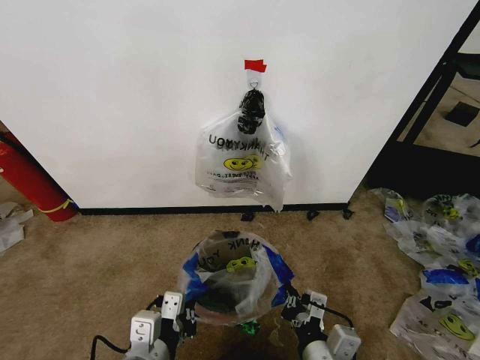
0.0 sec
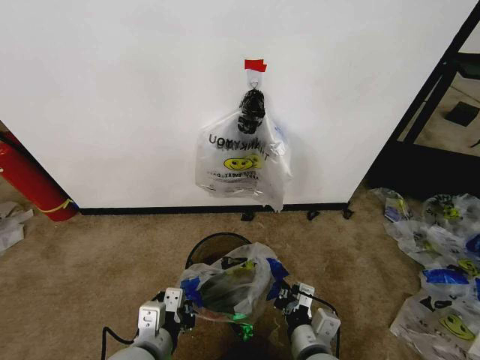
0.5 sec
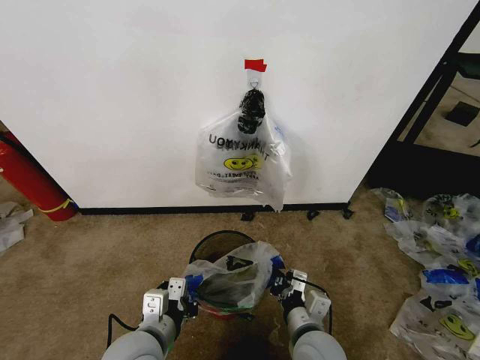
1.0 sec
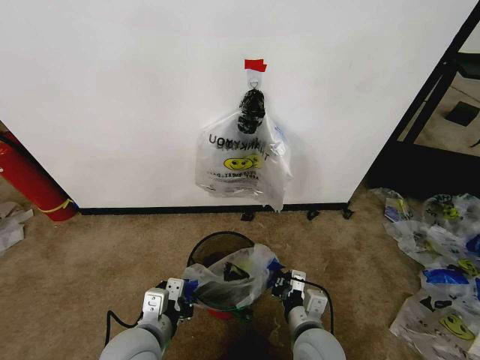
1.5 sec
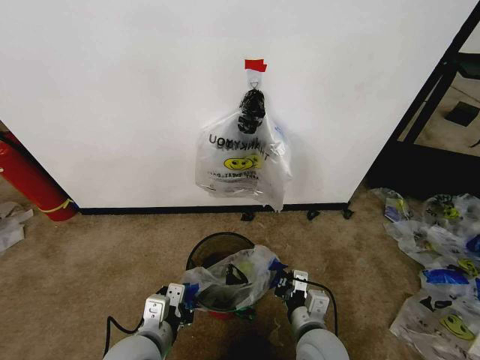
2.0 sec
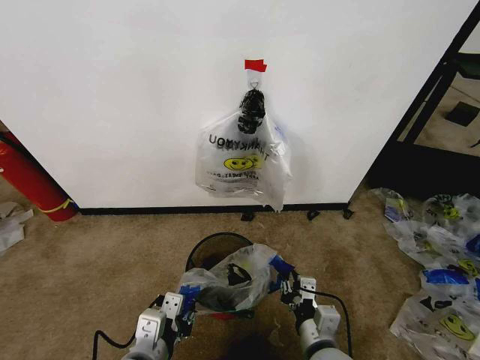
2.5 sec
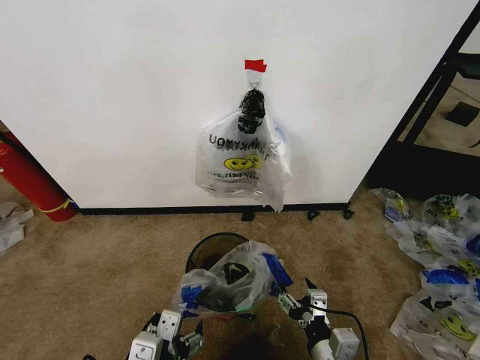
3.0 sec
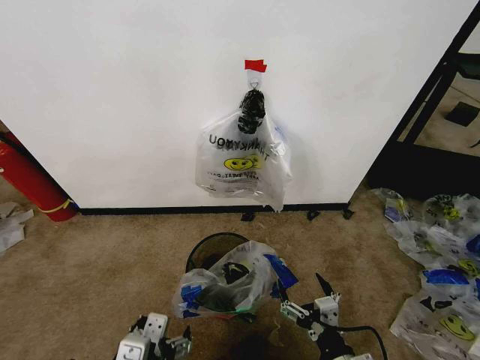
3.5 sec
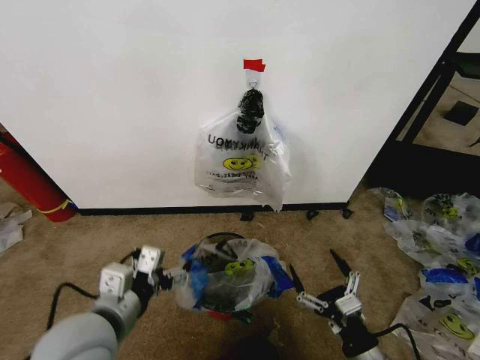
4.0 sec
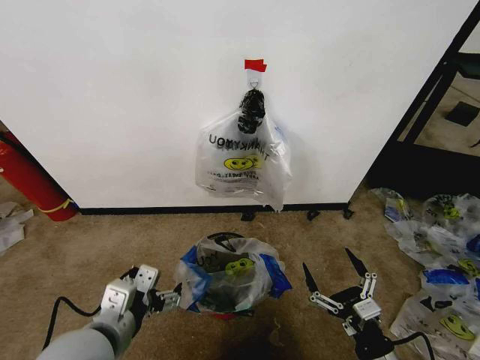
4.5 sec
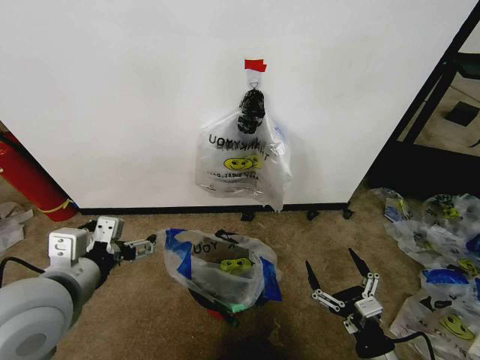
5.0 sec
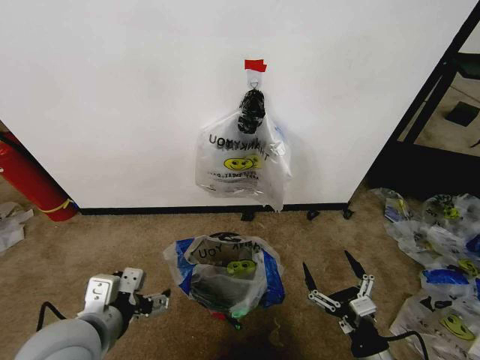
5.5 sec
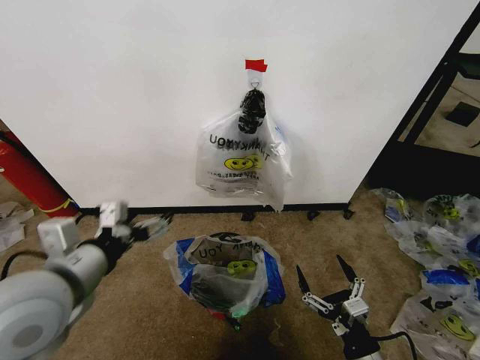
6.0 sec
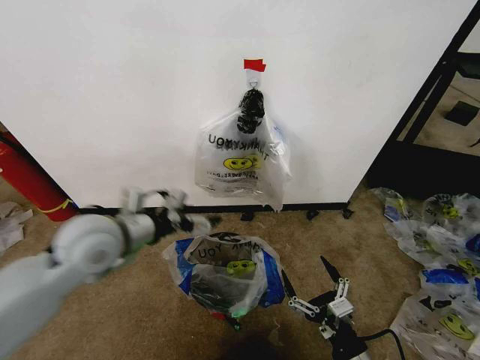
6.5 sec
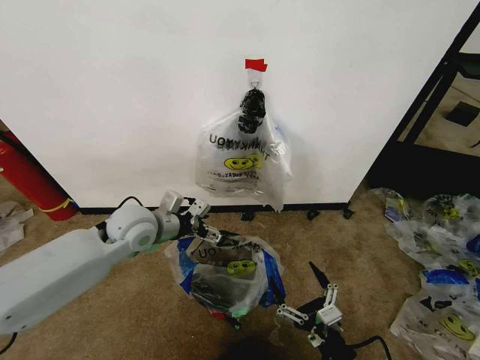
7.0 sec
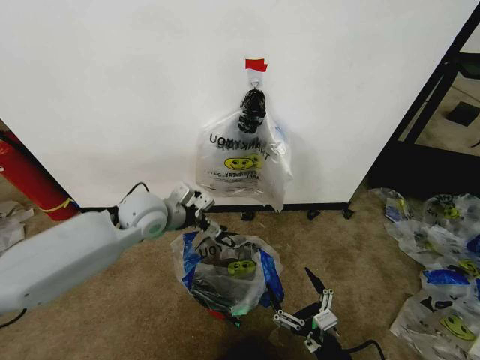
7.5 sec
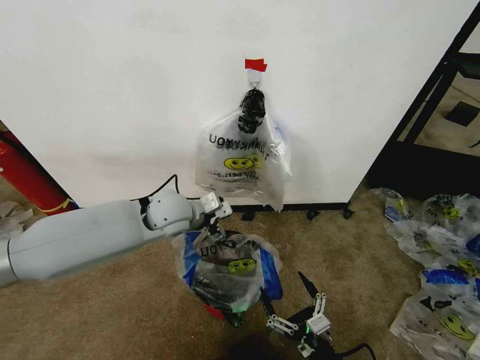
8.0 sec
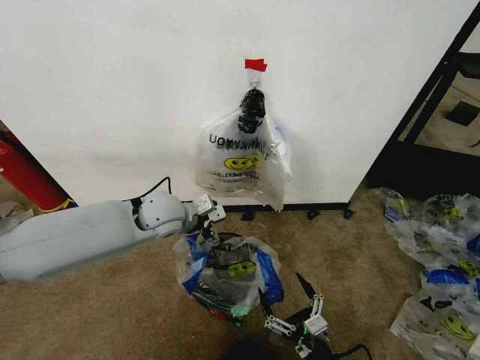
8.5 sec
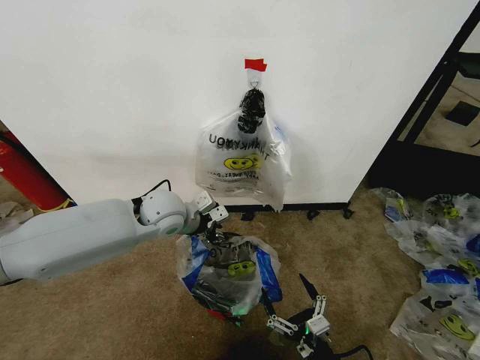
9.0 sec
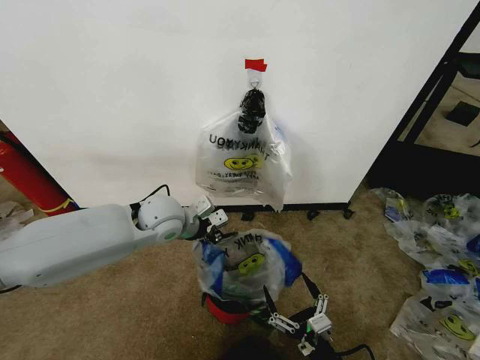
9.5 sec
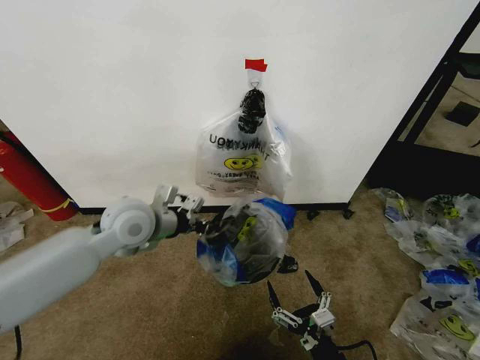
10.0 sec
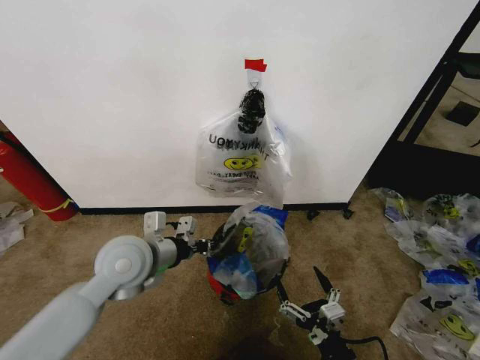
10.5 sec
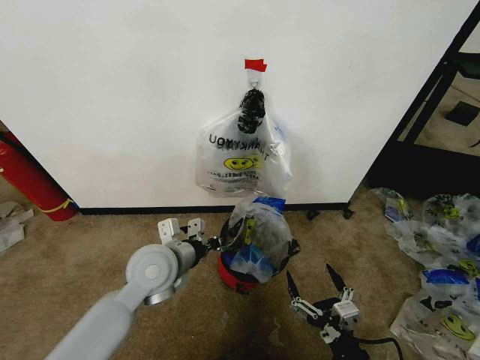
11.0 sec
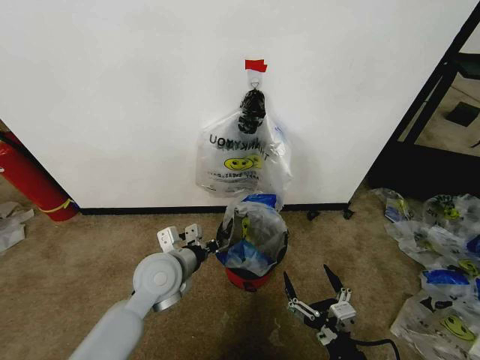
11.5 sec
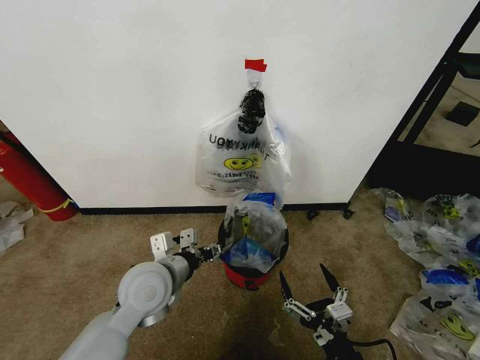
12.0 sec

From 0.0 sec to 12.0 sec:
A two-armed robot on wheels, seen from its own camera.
Task of the whole recording: Pick up the garbage bag from the wall and place it over the trash bin.
From 0.0 sec to 2.0 sec: The left gripper moves roughly 5 cm. Meanwhile the right gripper goes approximately 10 cm forward and downward.
From 2.0 sec to 4.0 sec: The left gripper heads upward, covering roughly 10 cm, and opens. The right gripper moves to the right and backward, about 15 cm, and opens up.
From 4.0 sec to 6.0 sec: The left gripper moves up and down over roughly 10 cm, changing direction 2 times.
From 6.0 sec to 8.0 sec: The left gripper heads forward and to the right, covering roughly 25 cm; the right gripper heads to the left, covering roughly 5 cm.
From 8.0 sec to 10.0 sec: The left gripper moves to the left and backward, some 10 cm, and closes up.
From 10.0 sec to 12.0 sec: The left gripper travels backward and downward by approximately 10 cm, and opens up.

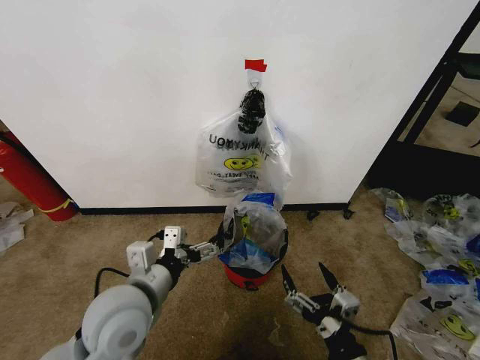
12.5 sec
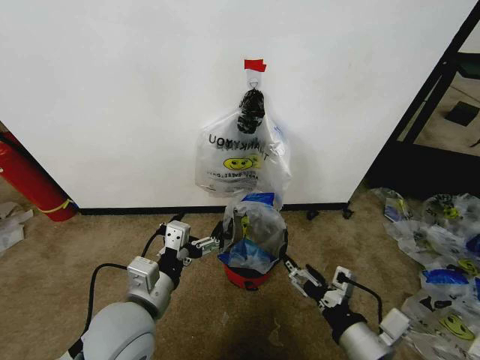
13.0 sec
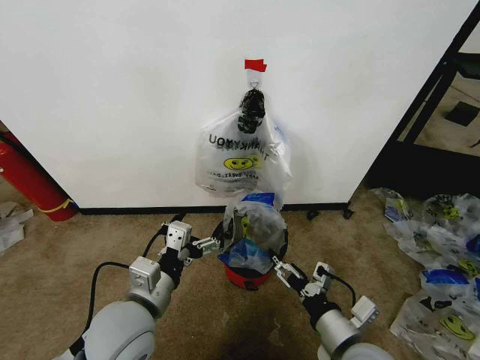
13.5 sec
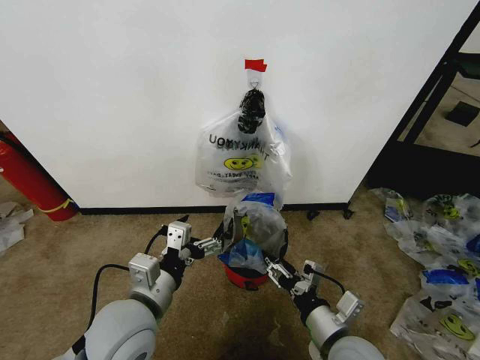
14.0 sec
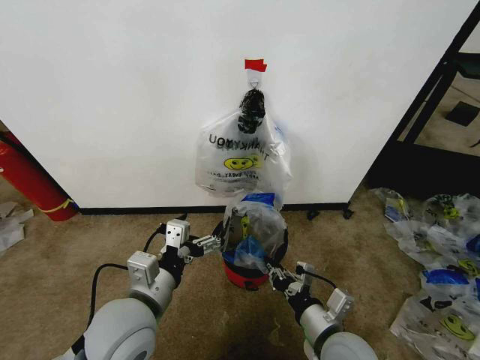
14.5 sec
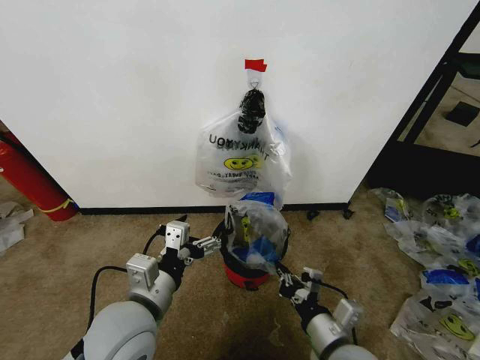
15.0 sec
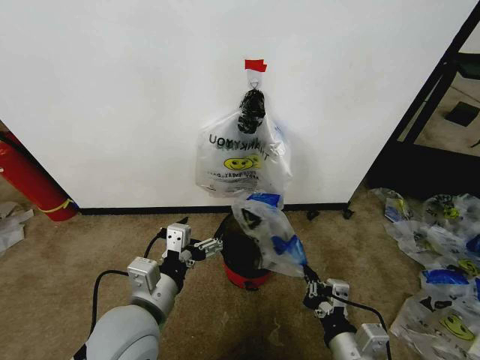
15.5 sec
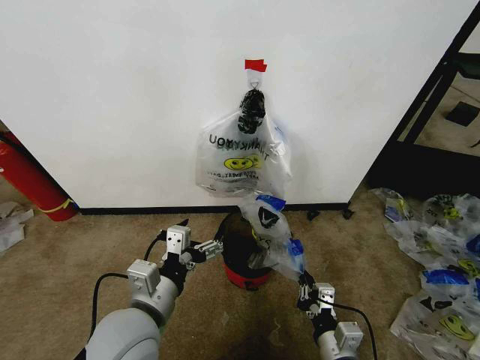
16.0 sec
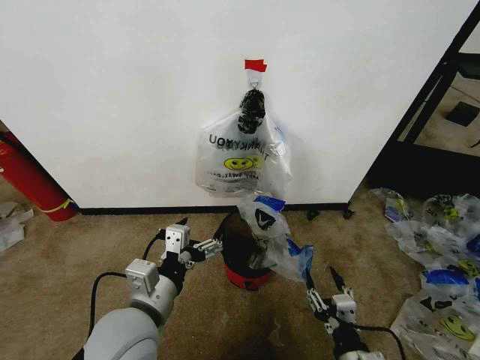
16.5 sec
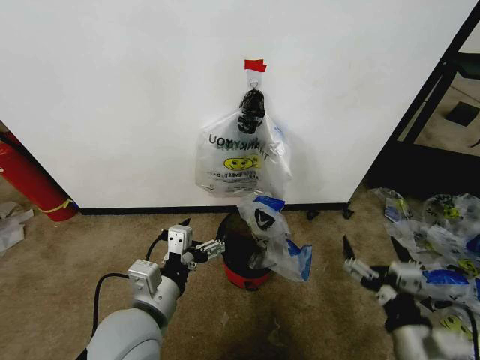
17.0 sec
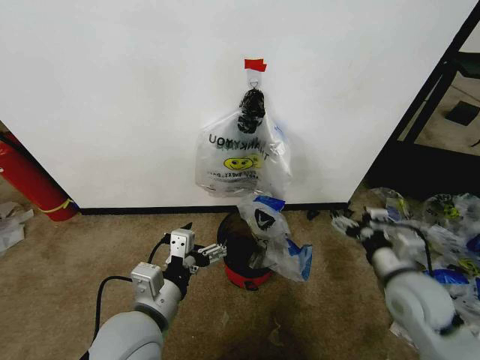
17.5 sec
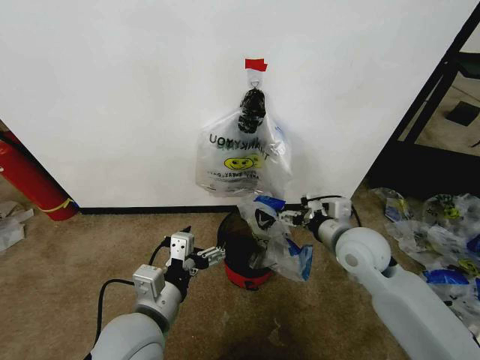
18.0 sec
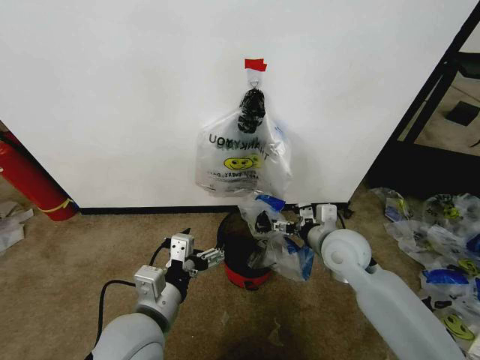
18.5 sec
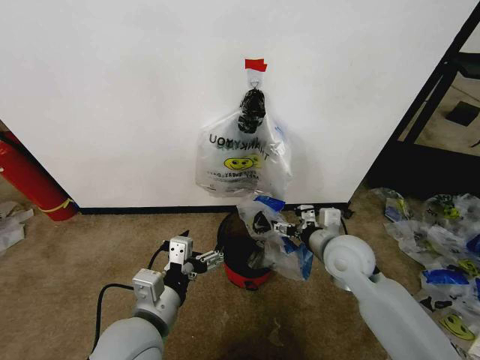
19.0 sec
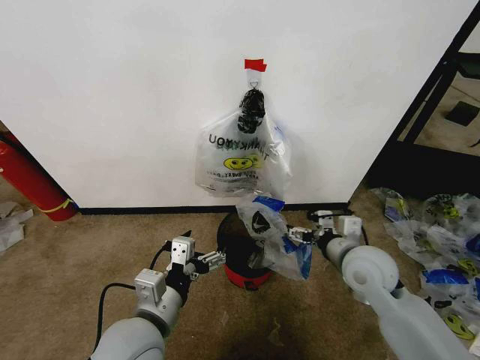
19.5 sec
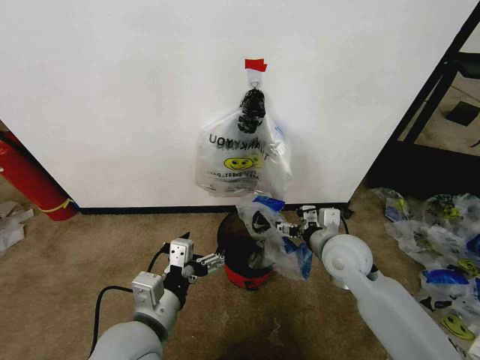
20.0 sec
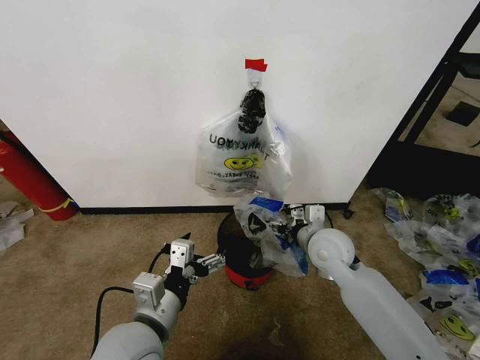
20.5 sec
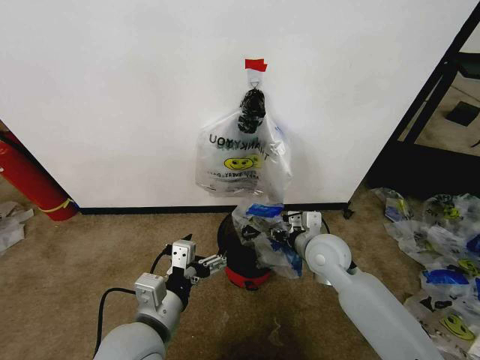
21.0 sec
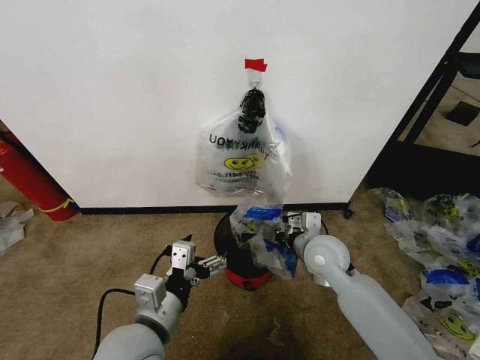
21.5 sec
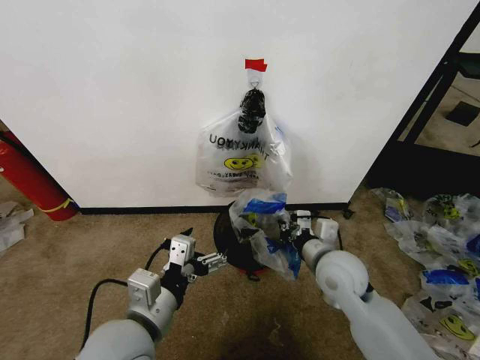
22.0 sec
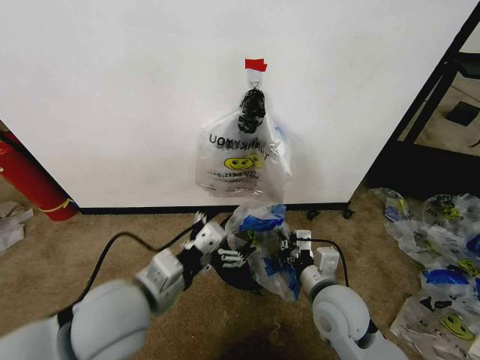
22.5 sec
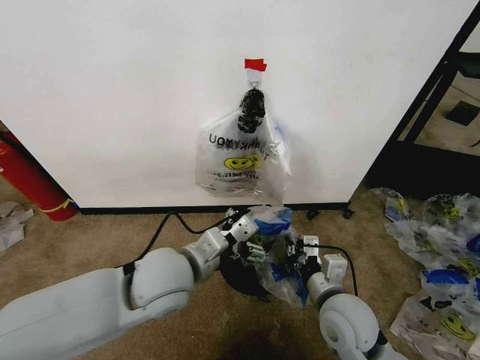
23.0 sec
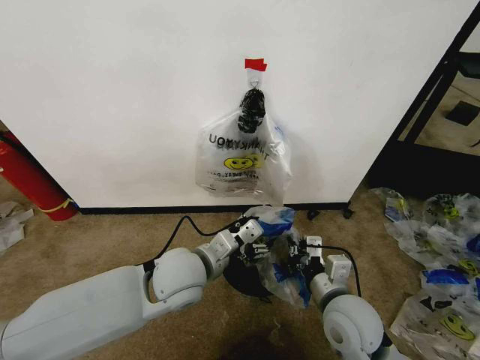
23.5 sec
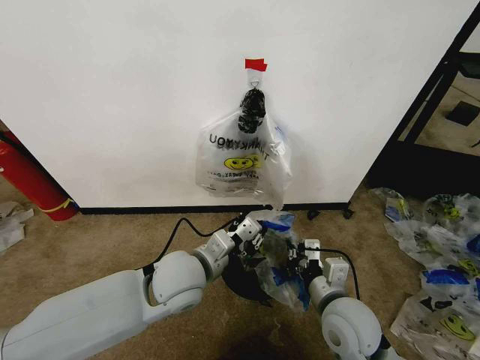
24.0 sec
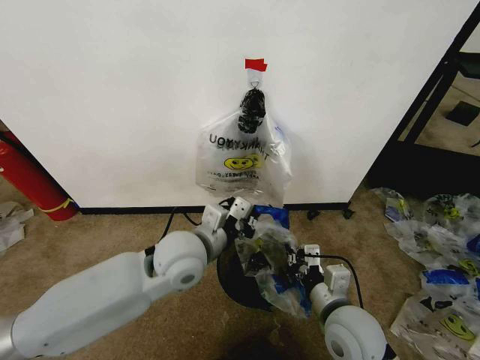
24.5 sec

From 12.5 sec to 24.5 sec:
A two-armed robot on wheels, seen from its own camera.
Task of the whole recording: Pick up the garbage bag from the wall and place it over the trash bin.
From 12.5 sec to 14.5 sec: The right gripper heads forward, covering approximately 10 cm, and closes its fingers.
From 14.5 sec to 16.5 sec: The right gripper heads backward, covering about 10 cm, and opens its fingers.
From 16.5 sec to 18.5 sec: The right gripper heads forward and upward, covering some 30 cm, and opens its fingers.
From 18.5 sec to 20.5 sec: The grippers make only small movements.
From 20.5 sec to 22.5 sec: The right gripper goes some 10 cm backward, and closes its fingers. The left gripper is displaced upward by about 5 cm.
From 22.5 sec to 24.5 sec: The left gripper goes some 10 cm forward and to the right, and closes its fingers.

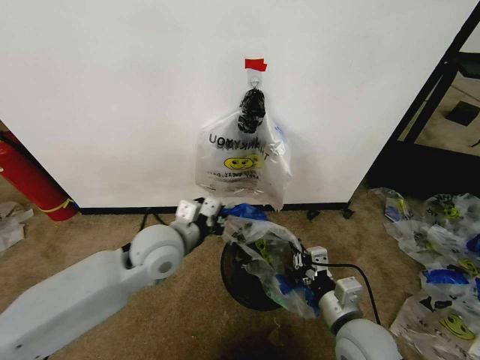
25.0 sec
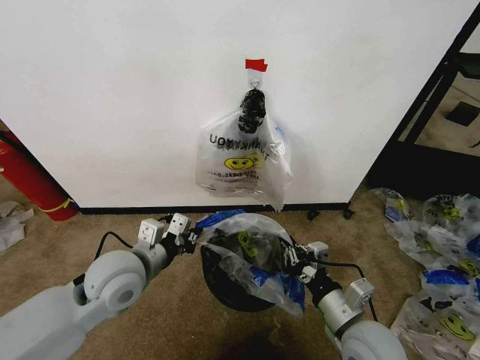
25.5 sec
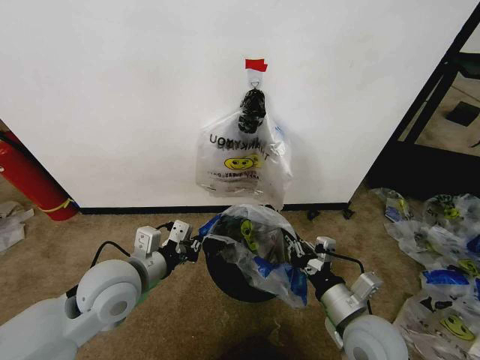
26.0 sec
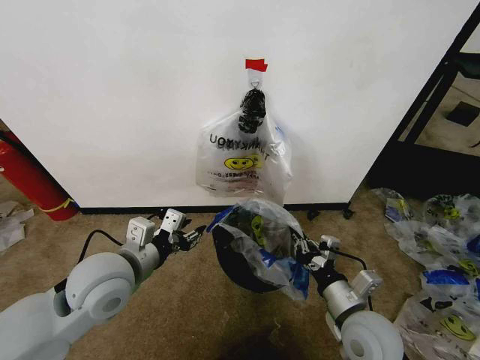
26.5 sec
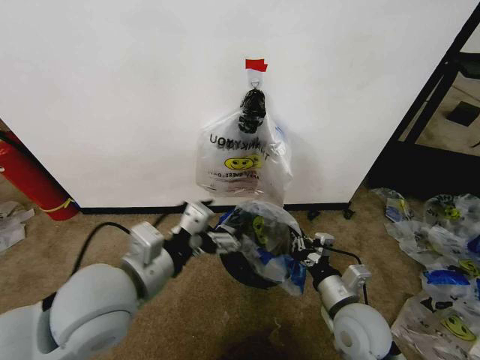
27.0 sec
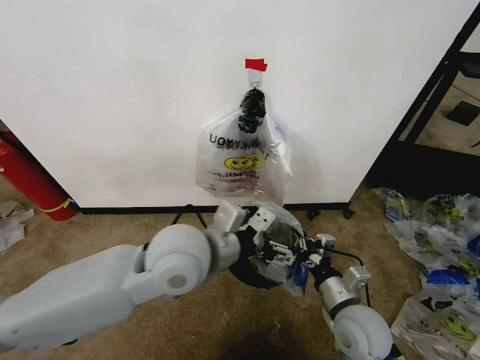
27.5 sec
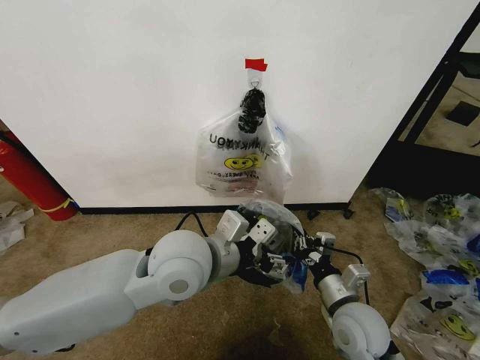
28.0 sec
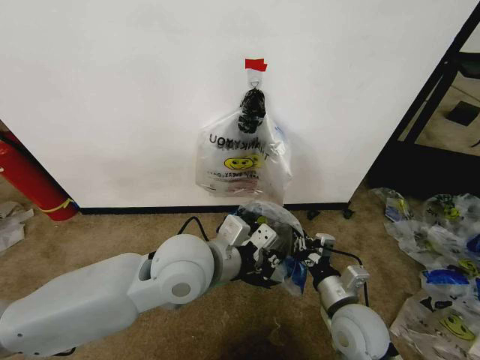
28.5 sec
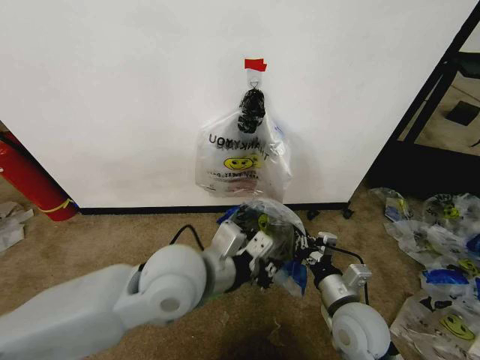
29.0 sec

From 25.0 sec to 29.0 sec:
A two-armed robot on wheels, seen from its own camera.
Task of the whole recording: Pick up the garbage bag from the wall and place it over the trash bin.
From 25.0 sec to 27.0 sec: The left gripper travels backward and upward by approximately 15 cm, and opens up.
From 27.0 sec to 29.0 sec: The left gripper travels to the right by approximately 10 cm, and closes its fingers.
